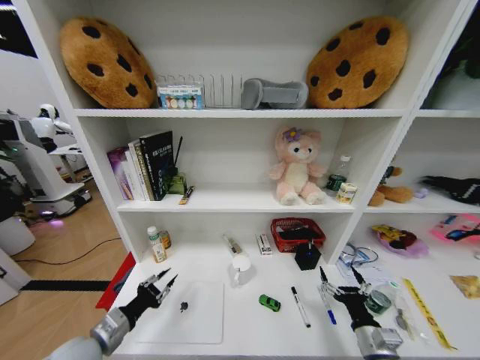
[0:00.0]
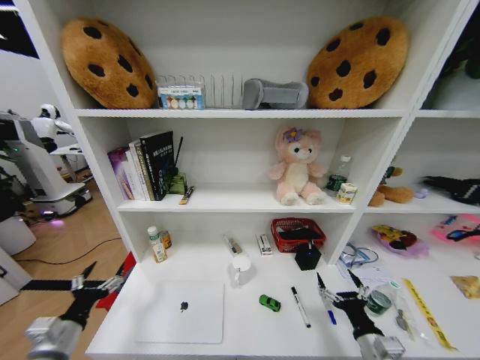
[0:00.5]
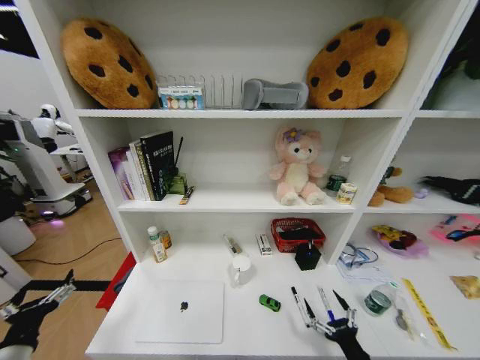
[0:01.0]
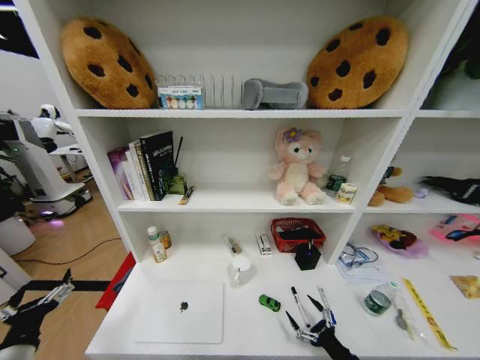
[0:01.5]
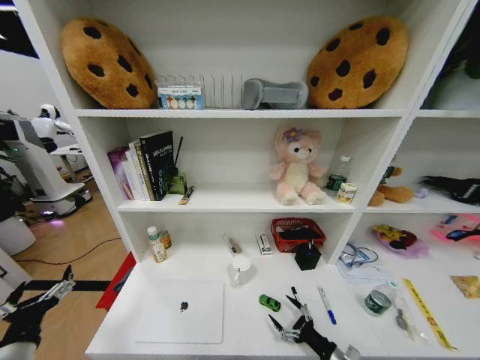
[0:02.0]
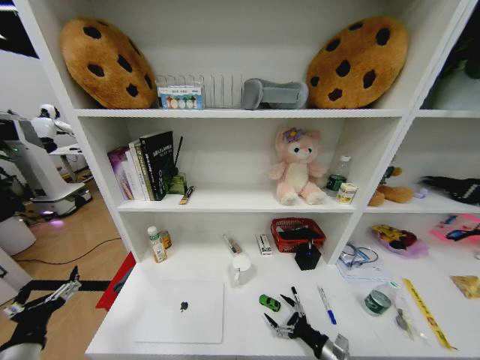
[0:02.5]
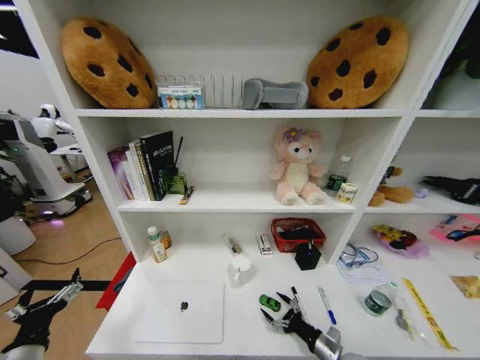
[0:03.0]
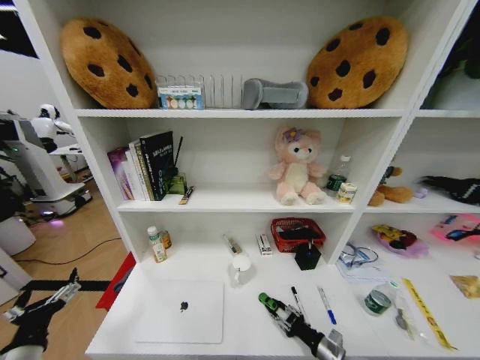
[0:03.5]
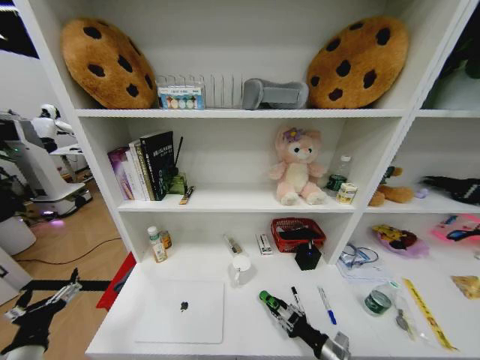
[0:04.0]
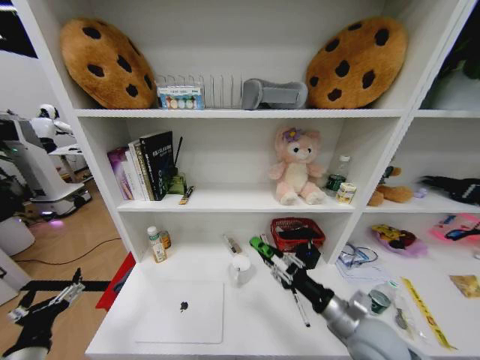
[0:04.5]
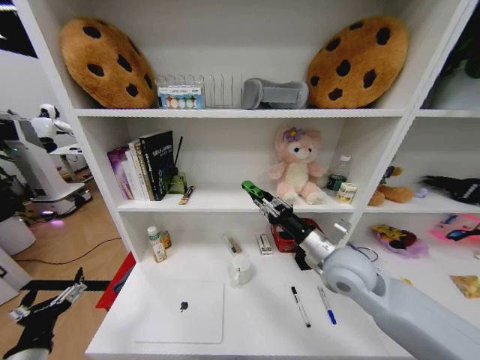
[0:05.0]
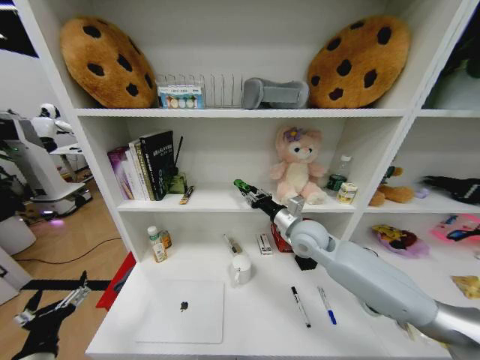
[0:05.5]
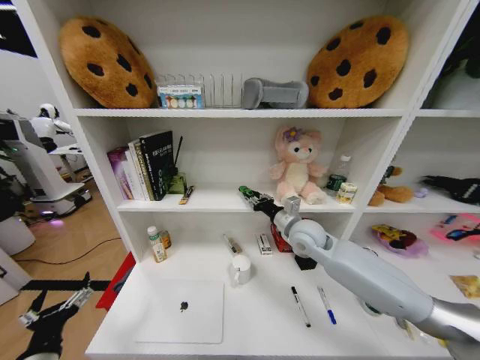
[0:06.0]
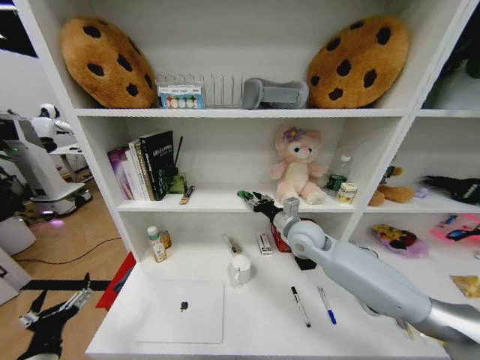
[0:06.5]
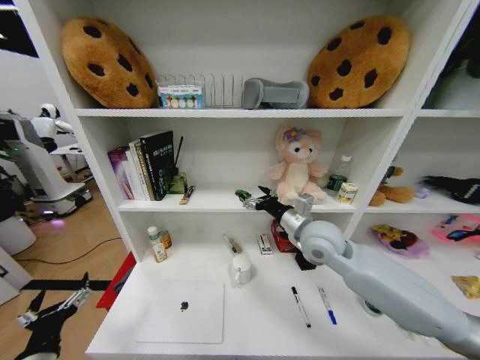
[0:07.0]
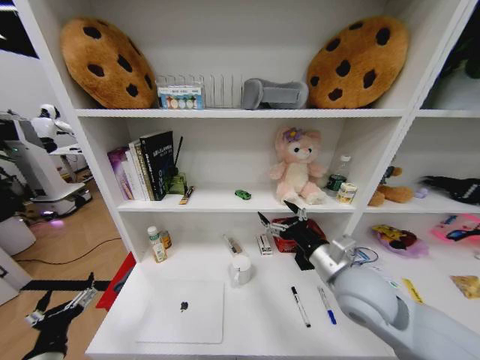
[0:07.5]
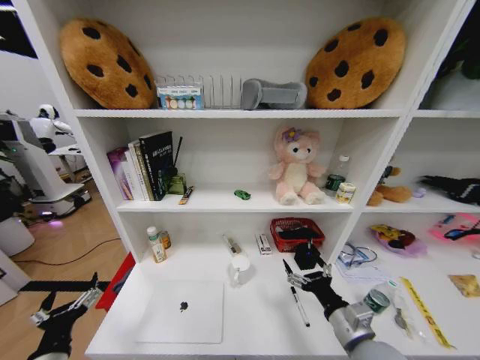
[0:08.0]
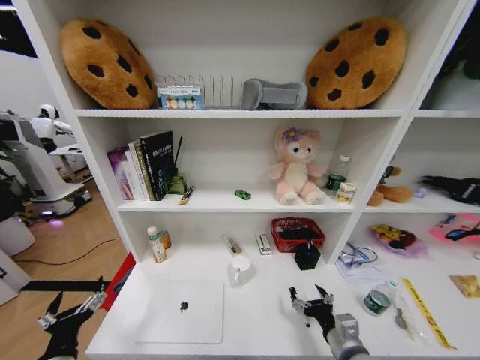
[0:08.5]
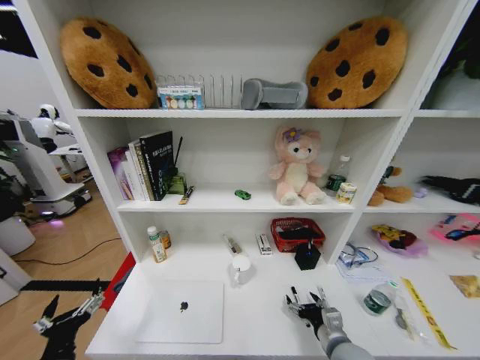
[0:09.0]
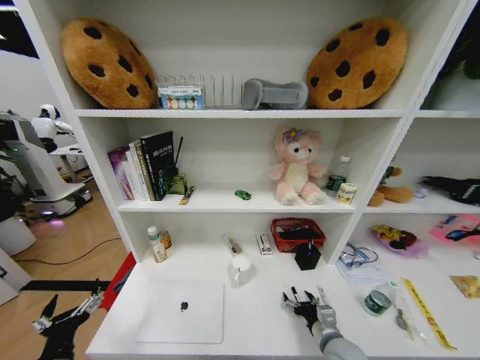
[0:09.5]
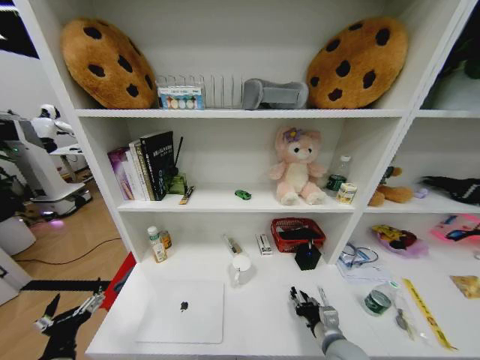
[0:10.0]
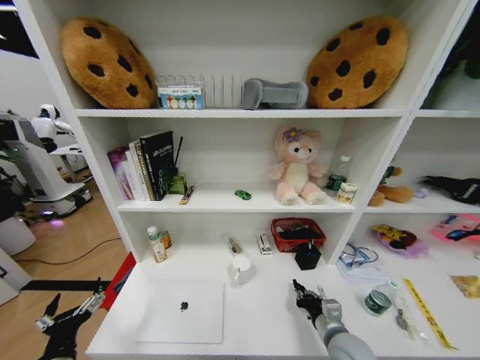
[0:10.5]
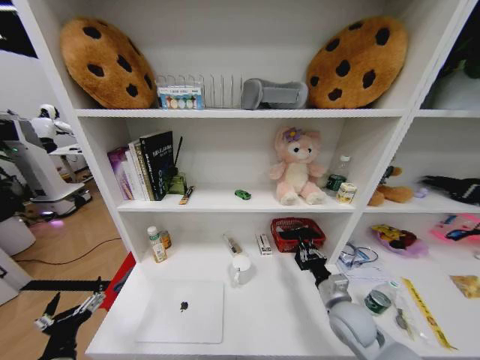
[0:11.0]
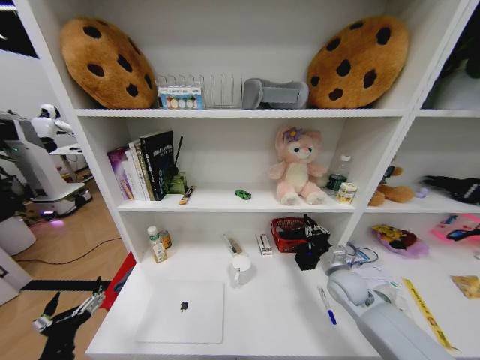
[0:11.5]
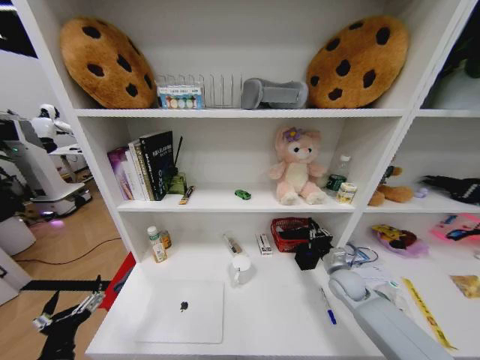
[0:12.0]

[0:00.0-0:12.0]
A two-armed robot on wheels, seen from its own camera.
Task of the whole recording: Organize the objects on the table.
0:00.0 to 0:02.0: The right gripper is displaced downward by roughly 10 cm; the left gripper heads to the left and backward, covering roughly 10 cm, and opens up.
0:02.0 to 0:04.0: The right gripper closes up.
0:04.0 to 0:06.0: The right gripper is displaced forward, upward and to the left by some 40 cm.
0:06.0 to 0:08.0: The right gripper heads backward, covering some 25 cm, and opens.
0:08.0 to 0:10.0: The right gripper travels downward by approximately 10 cm, and closes up.
0:10.0 to 0:12.0: The right gripper goes approximately 20 cm forward and to the right.

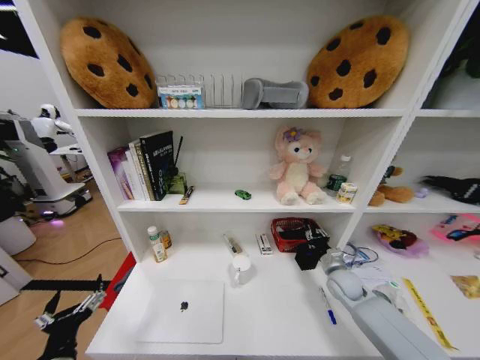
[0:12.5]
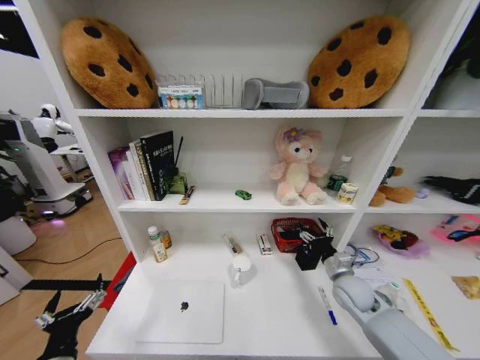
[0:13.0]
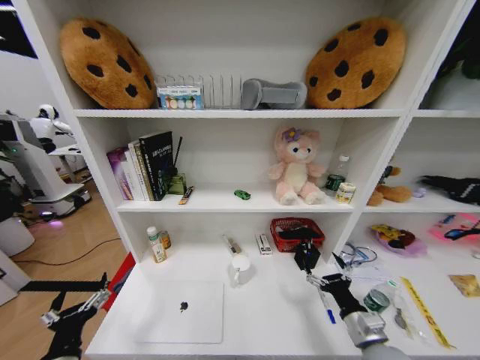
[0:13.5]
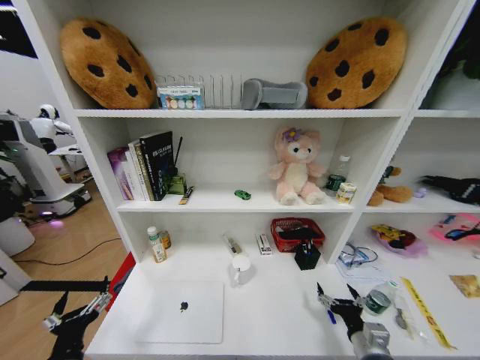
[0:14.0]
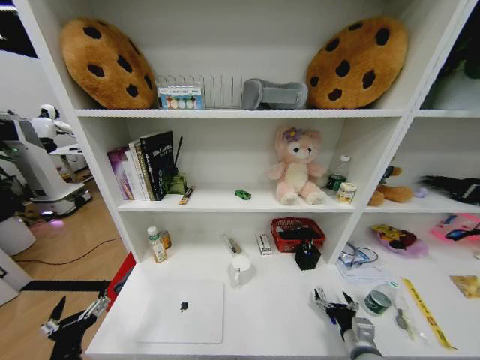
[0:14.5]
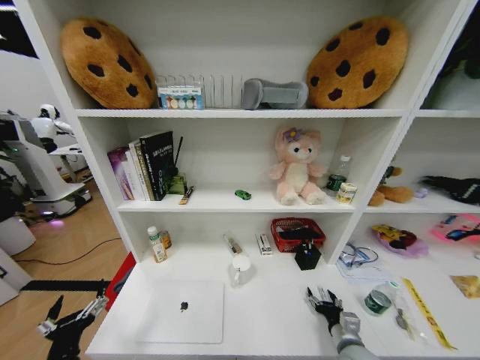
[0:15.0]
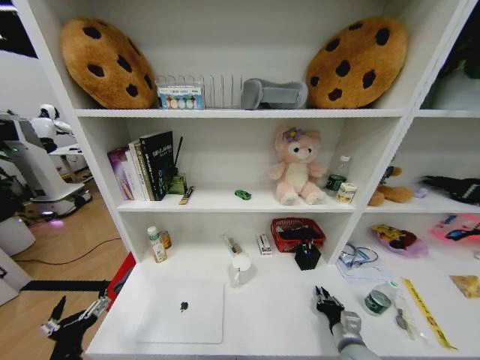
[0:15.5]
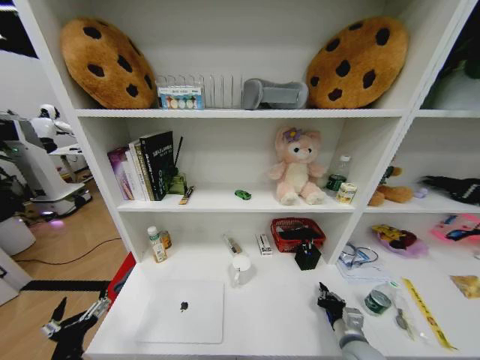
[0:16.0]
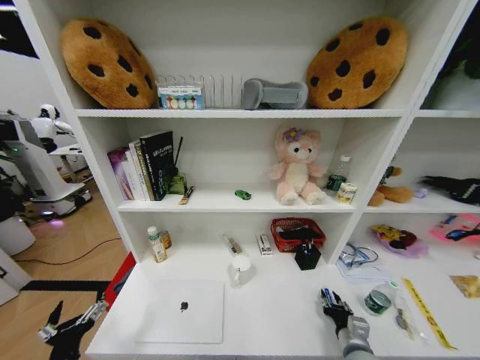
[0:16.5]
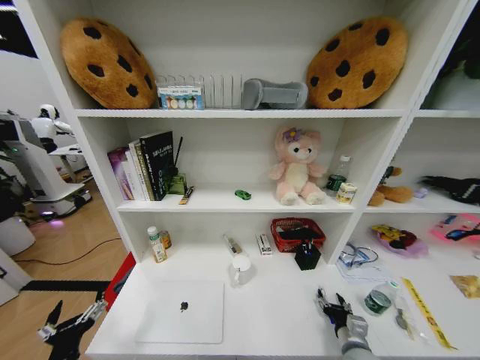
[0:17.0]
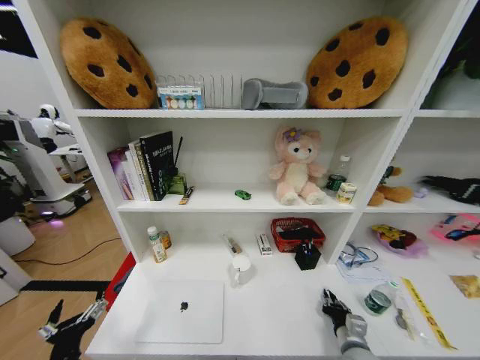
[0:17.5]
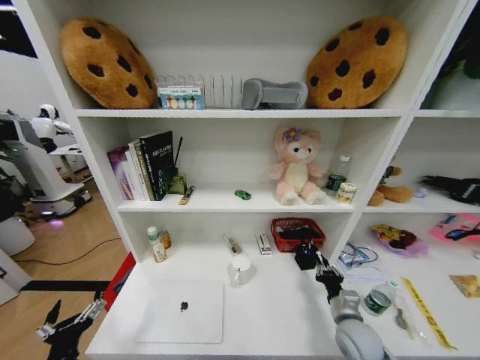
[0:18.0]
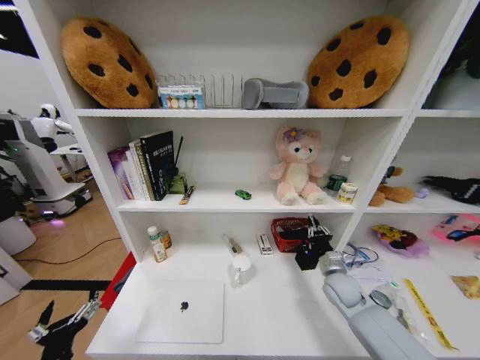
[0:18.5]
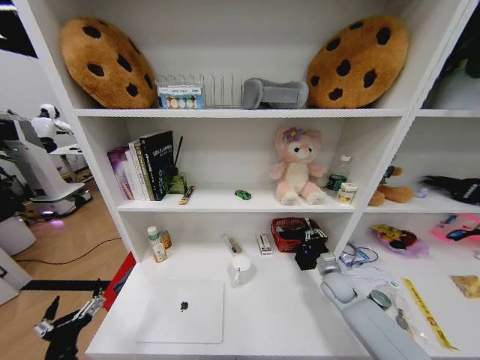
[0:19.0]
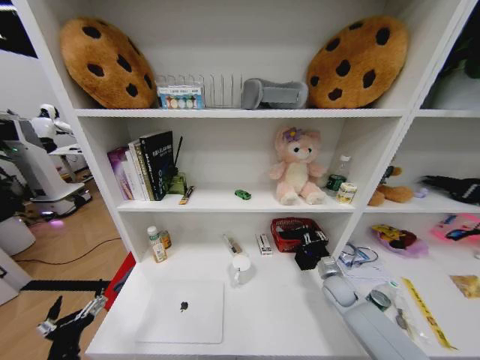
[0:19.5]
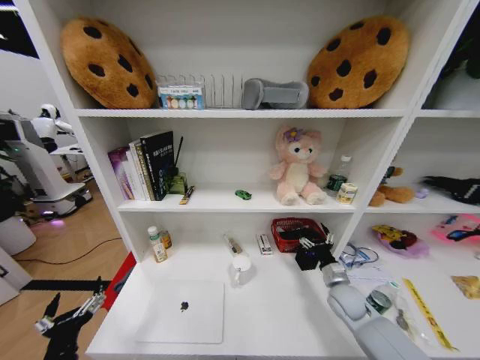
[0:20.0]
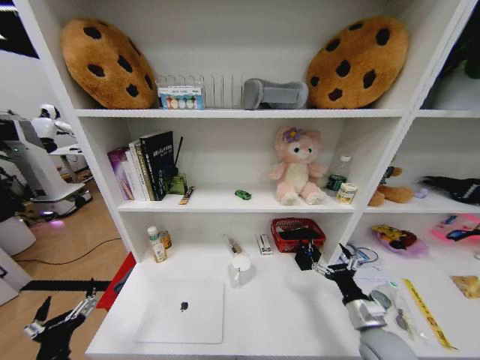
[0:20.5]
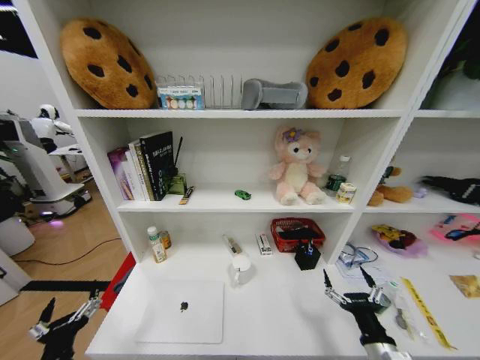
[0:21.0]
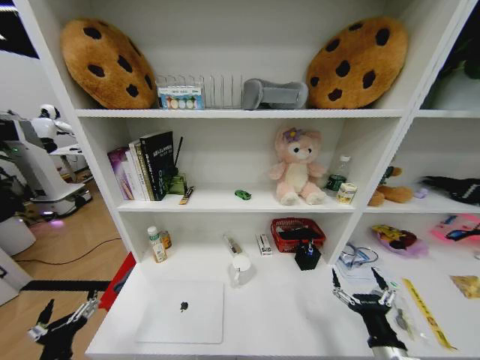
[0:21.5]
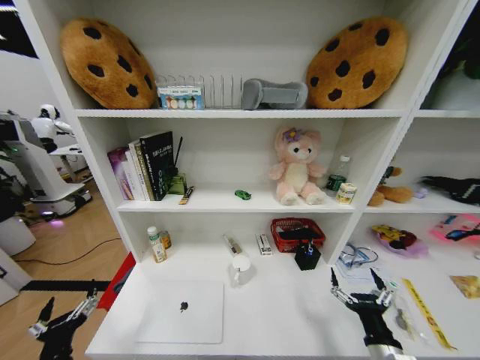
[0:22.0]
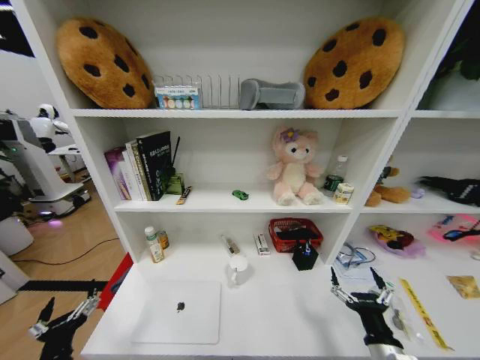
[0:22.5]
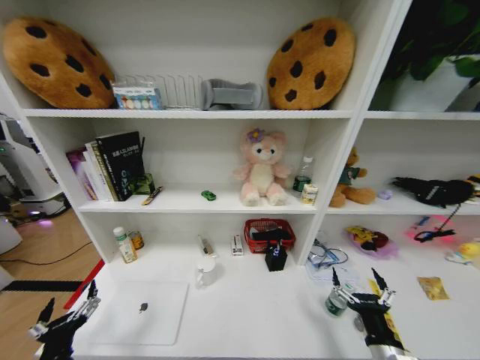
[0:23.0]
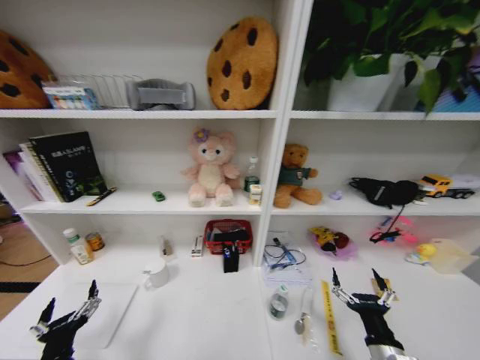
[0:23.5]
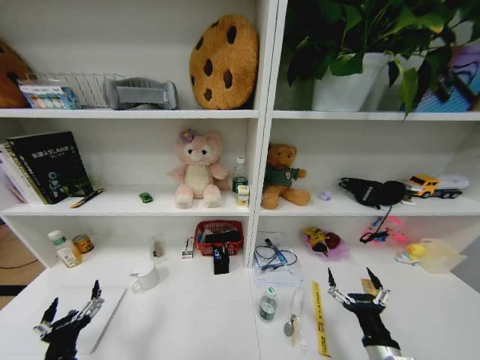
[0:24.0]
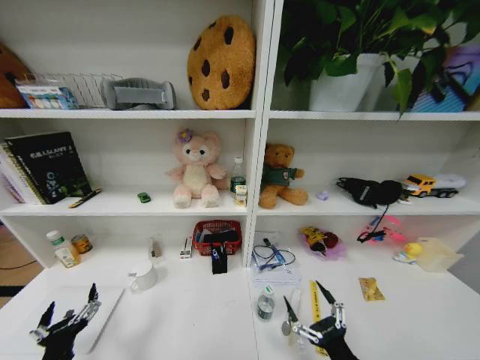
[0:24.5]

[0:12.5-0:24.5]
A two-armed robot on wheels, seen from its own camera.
Task of the whole recording: Organize the objects on the table.
0:12.5 to 0:14.5: The right gripper moves backward, roughly 20 cm, and opens.
0:14.5 to 0:16.5: The right gripper closes its fingers.
0:16.5 to 0:18.5: The right gripper travels forward by roughly 15 cm.
0:18.5 to 0:20.5: The right gripper moves backward, approximately 15 cm, and opens its fingers.
0:20.5 to 0:22.5: The right gripper heads backward, covering approximately 10 cm.
0:22.5 to 0:24.5: The right gripper travels backward by approximately 5 cm.

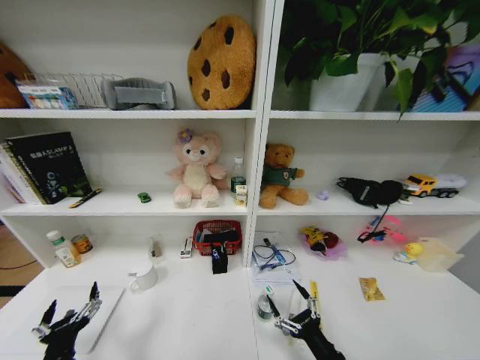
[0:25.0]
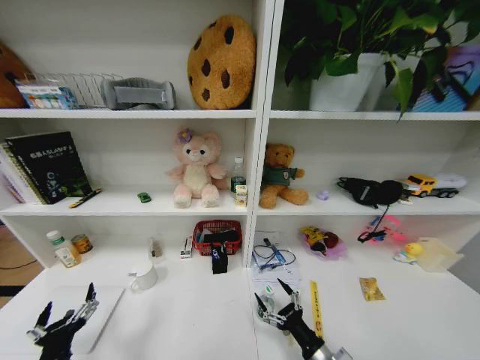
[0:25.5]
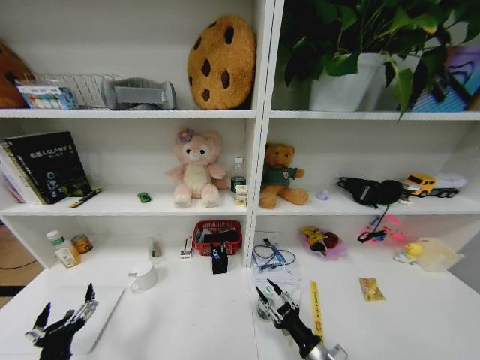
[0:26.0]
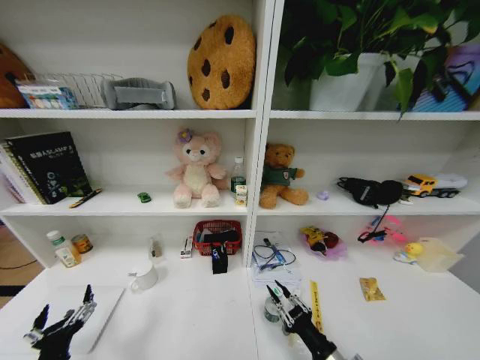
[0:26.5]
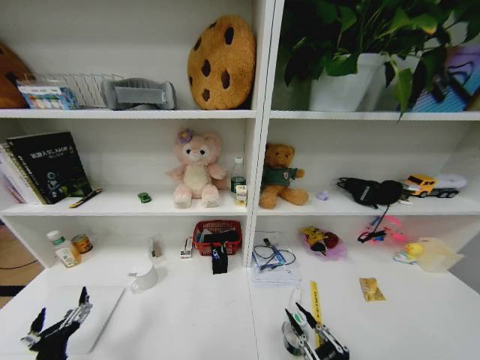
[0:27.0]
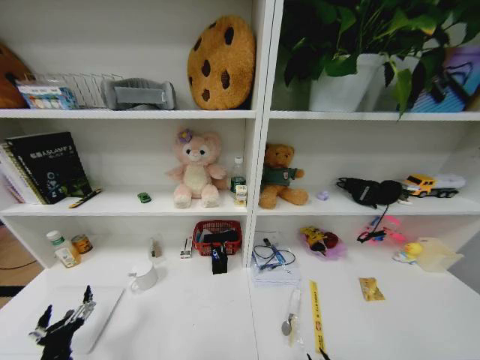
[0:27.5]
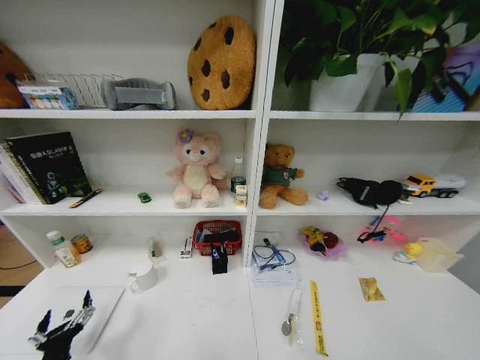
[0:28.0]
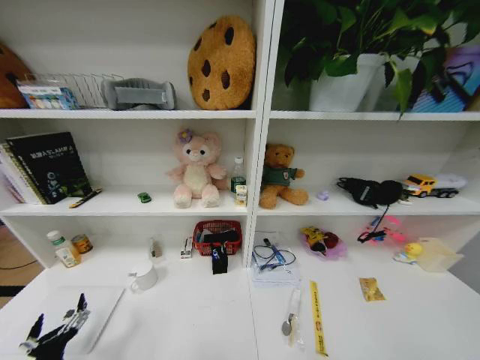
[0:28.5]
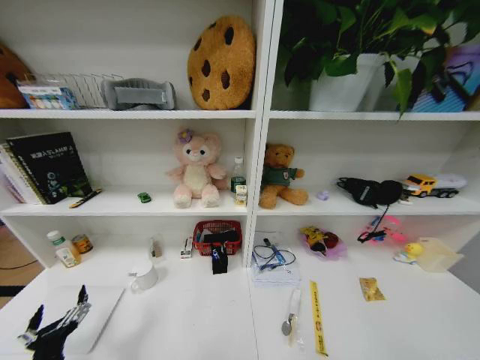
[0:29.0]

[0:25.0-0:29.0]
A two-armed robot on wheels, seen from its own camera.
Task of the whole recording: Organize the objects on the table.
0:25.0 to 0:27.0: The right gripper is displaced upward and backward by about 10 cm, and closes.
0:27.0 to 0:29.0: The right gripper shifts roughly 30 cm downward and backward.
